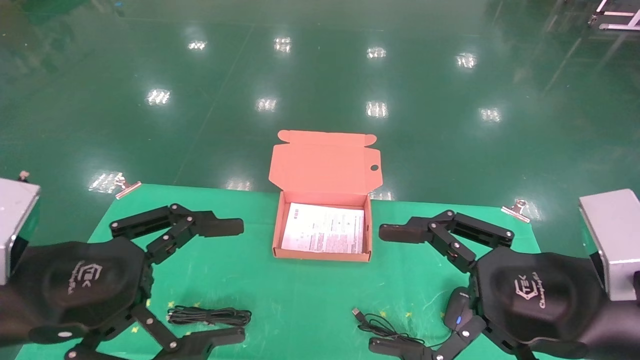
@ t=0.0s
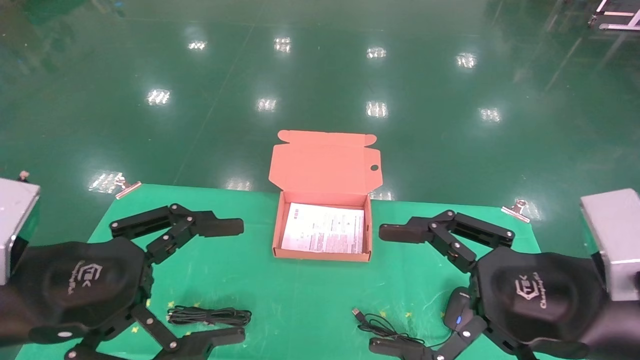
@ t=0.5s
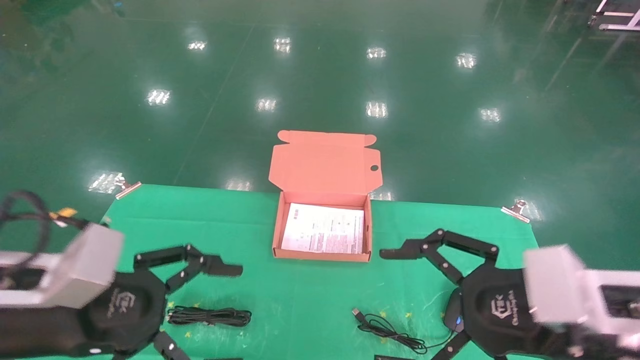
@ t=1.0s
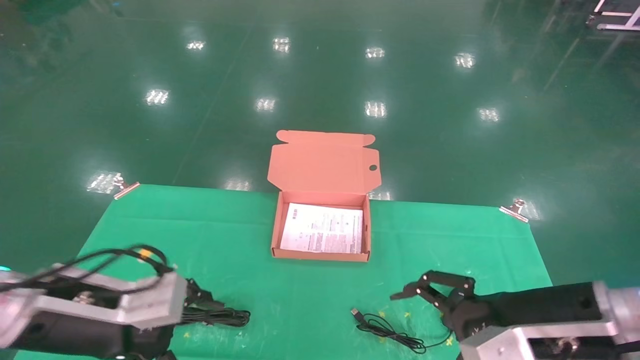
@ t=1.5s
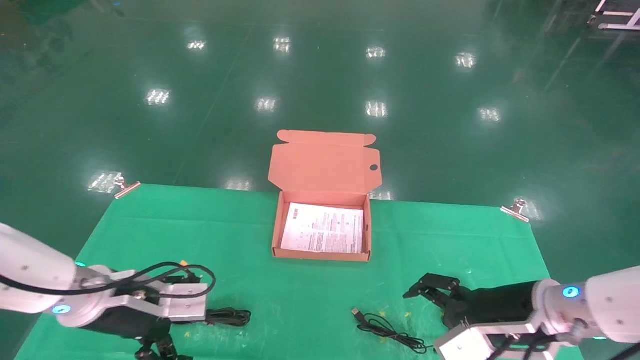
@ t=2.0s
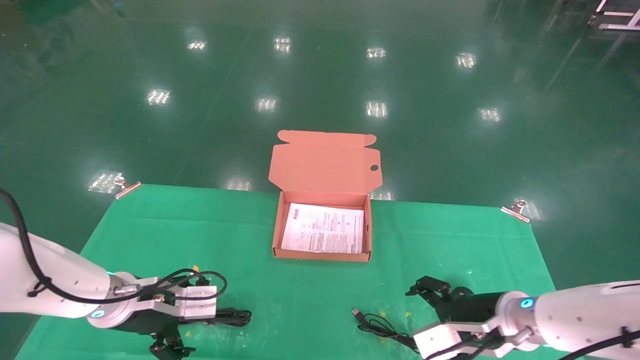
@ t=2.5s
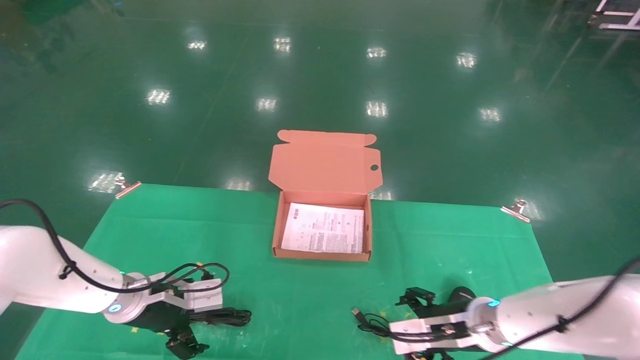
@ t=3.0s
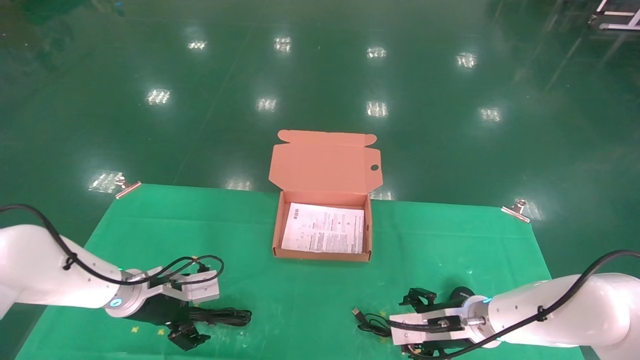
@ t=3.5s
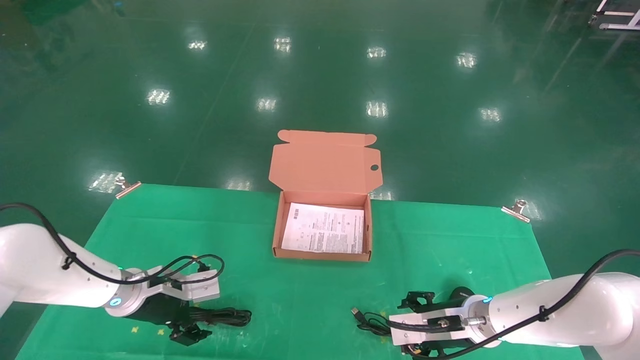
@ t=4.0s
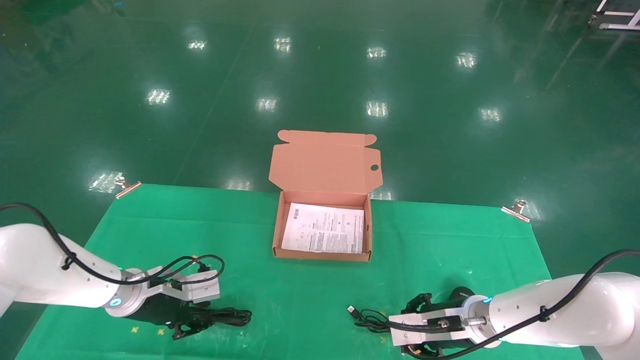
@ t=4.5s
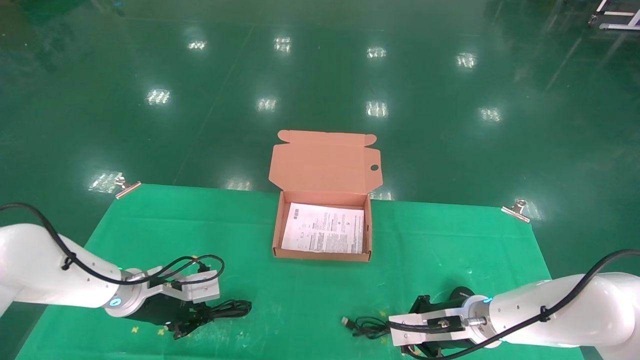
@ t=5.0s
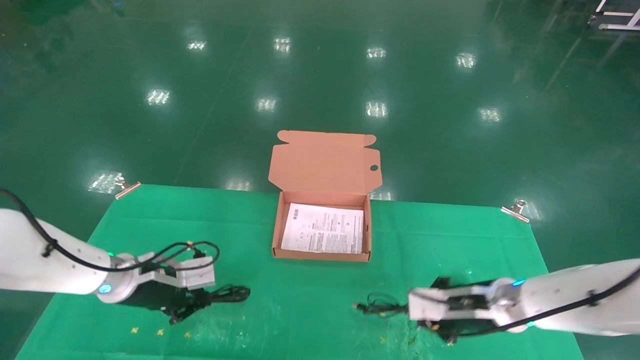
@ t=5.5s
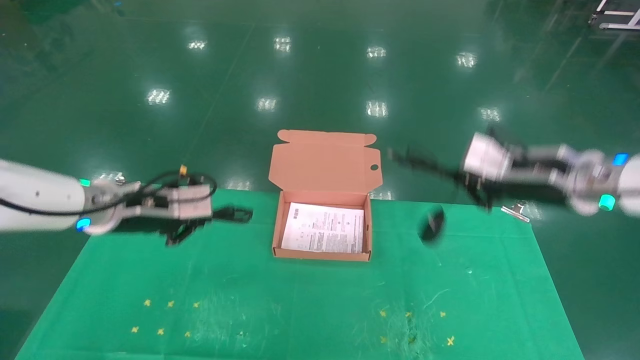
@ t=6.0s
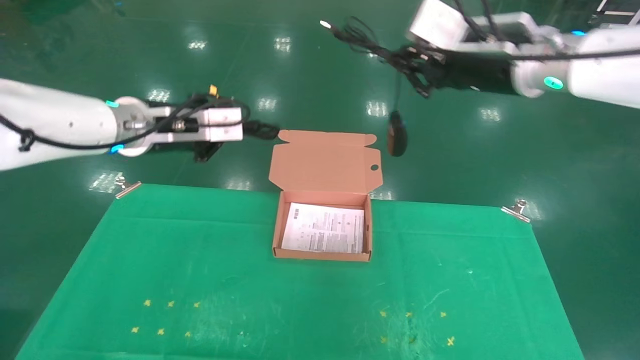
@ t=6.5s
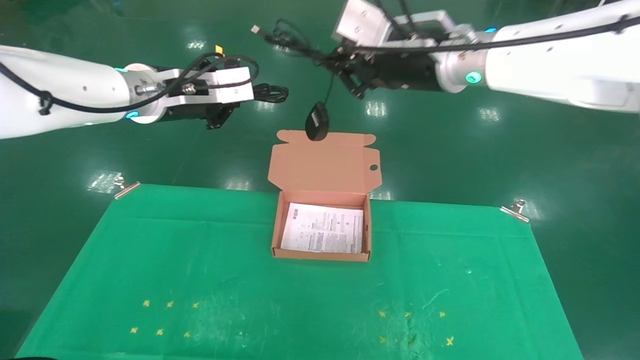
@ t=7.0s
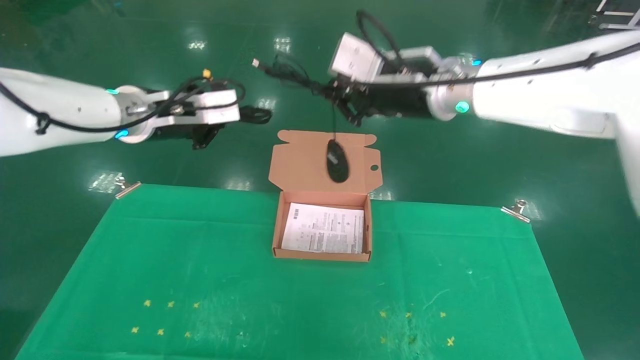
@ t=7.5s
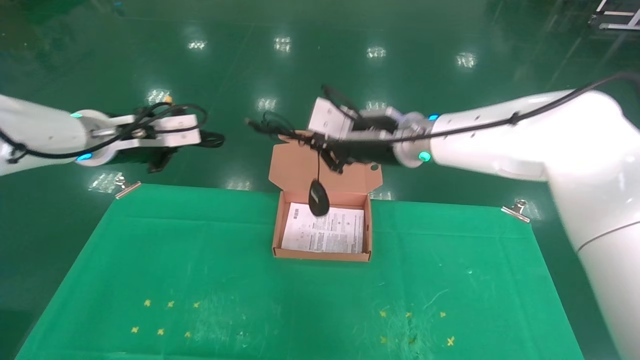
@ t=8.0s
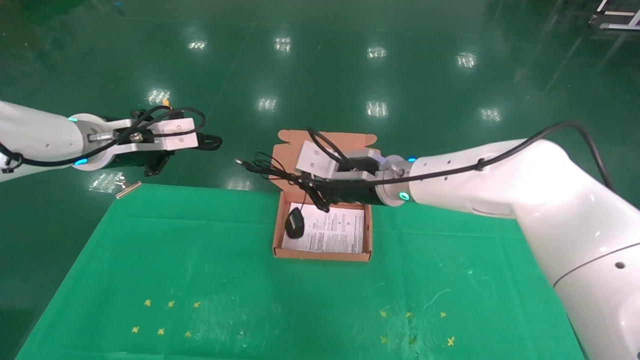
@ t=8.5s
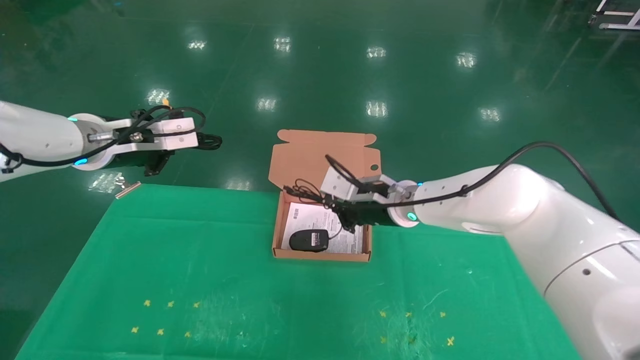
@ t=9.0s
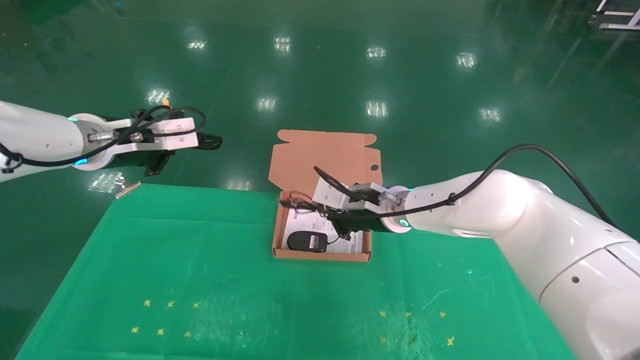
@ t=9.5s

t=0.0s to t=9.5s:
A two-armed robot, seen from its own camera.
Task of the whole recording: grasp data cable left put into box grasp mouse right put into box.
Step, t=0.5s to t=5.5s: Grab and pick up both the mouse and power cord from the accessory packaging area at the same time.
t=0.0s to t=2.0s: The grippers both shift forward and downward by some 15 cm.
t=2.0s to t=4.0s: The right gripper is displaced downward and forward by about 15 cm. Meanwhile the left gripper goes about 10 cm forward and downward.
t=4.0s to t=5.5s: The right gripper closes, while the left gripper closes.
t=5.5s to t=7.5s: The right gripper heads upward and to the left, covering approximately 30 cm. The left gripper travels upward by roughly 25 cm.
t=7.5s to t=9.5s: The right gripper heads downward, covering approximately 15 cm.

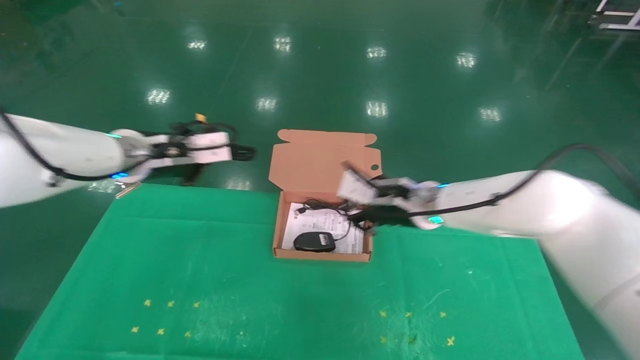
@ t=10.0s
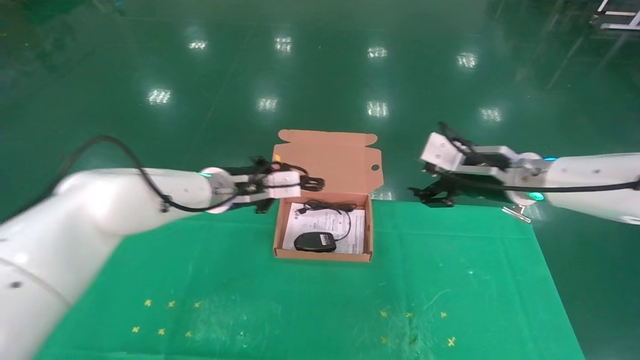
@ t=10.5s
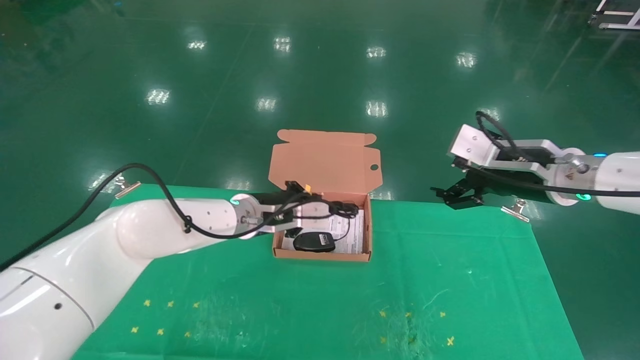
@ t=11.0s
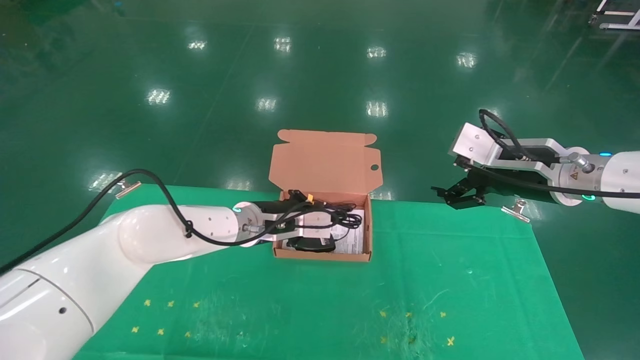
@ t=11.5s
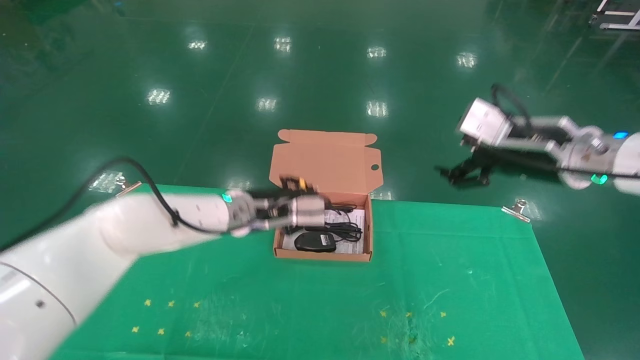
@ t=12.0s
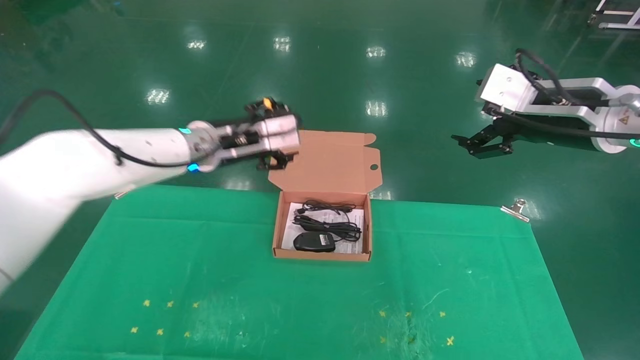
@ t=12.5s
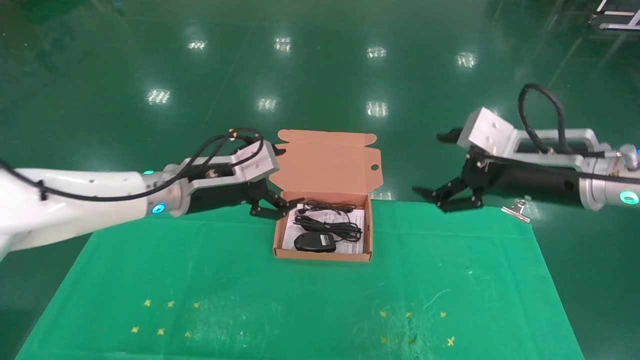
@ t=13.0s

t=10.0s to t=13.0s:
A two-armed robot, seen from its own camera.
Task of the whole recording: grasp data cable left put into box grasp mouse right put into box.
Step, t=10.0s to t=12.0s: Place the mouse and power cord into the box.
t=10.0s to t=11.5s: The left gripper shifts approximately 20 cm to the right and downward, while the right gripper moves to the right, backward and upward, roughly 20 cm, and opens its fingers.
t=11.5s to t=13.0s: The right gripper is displaced backward by roughly 5 cm. Meanwhile the left gripper goes roughly 15 cm to the left, upward and backward, and opens.

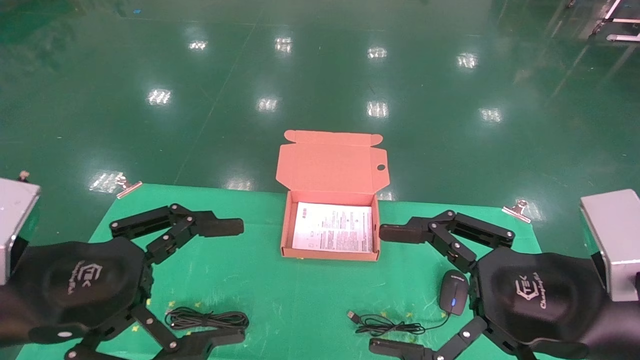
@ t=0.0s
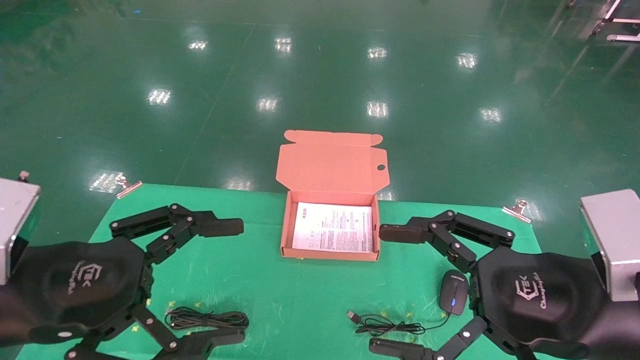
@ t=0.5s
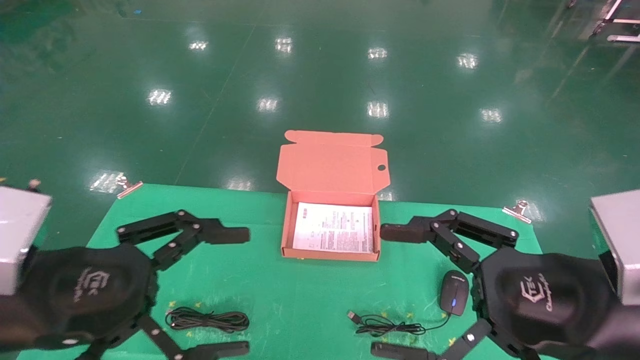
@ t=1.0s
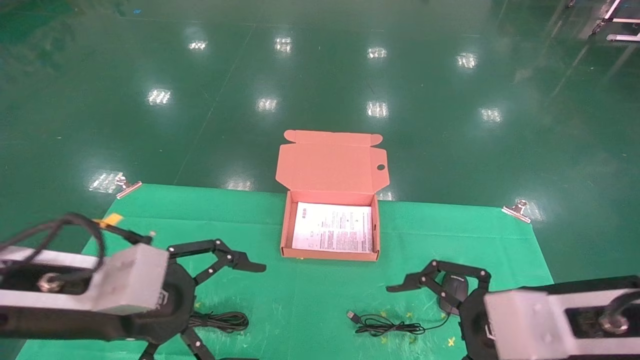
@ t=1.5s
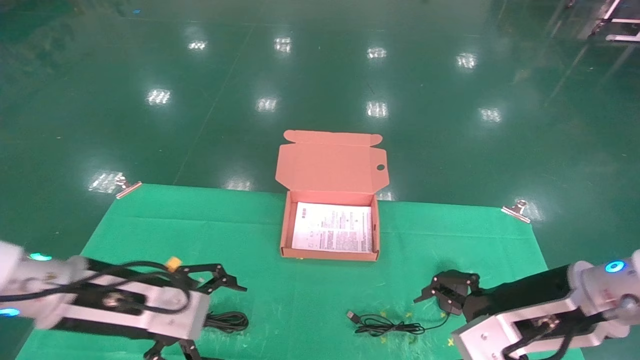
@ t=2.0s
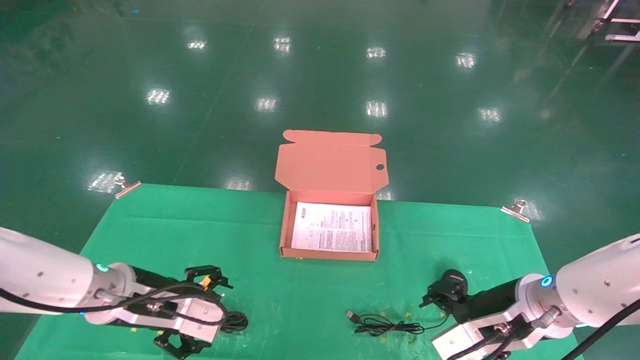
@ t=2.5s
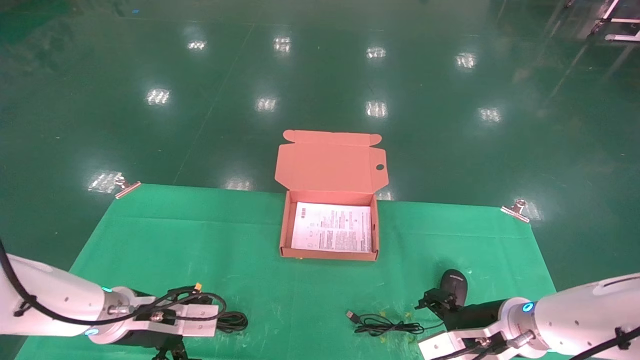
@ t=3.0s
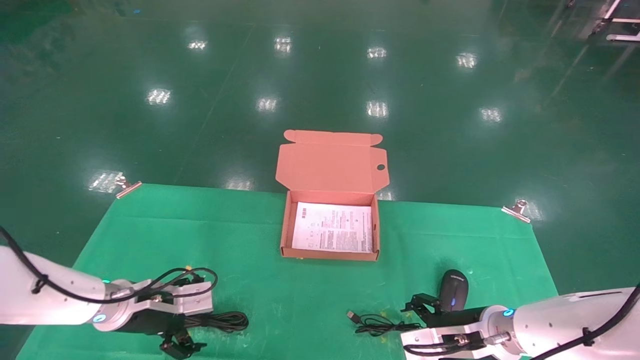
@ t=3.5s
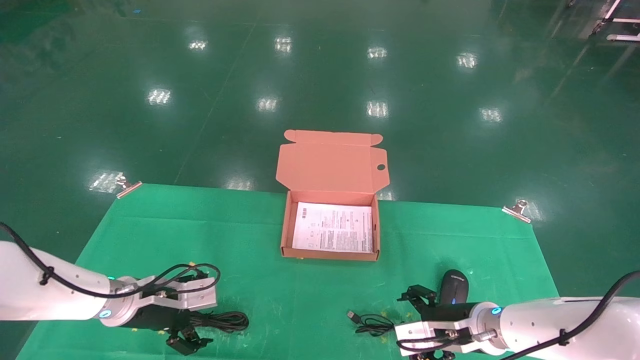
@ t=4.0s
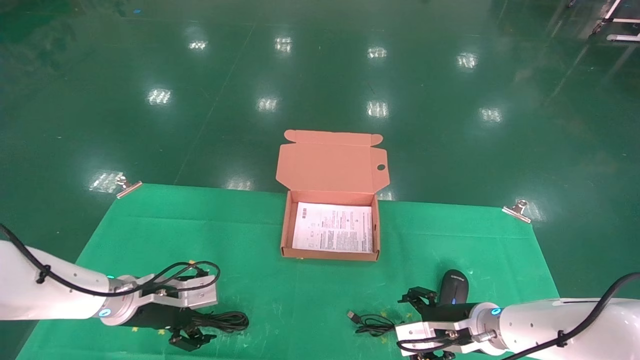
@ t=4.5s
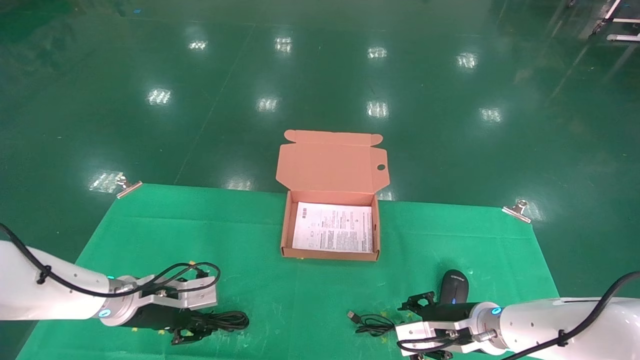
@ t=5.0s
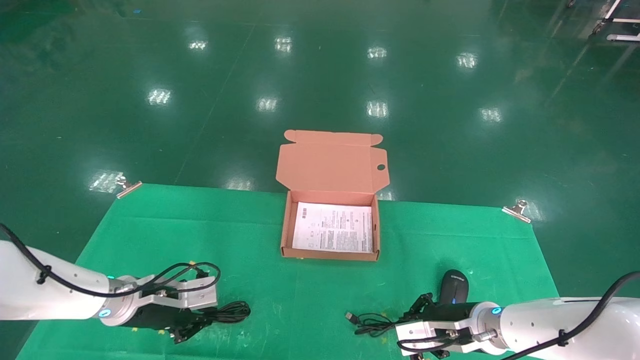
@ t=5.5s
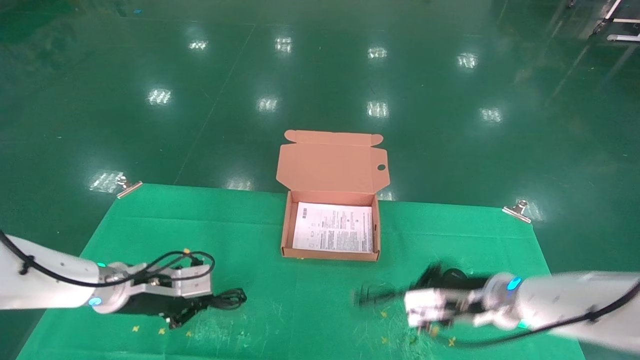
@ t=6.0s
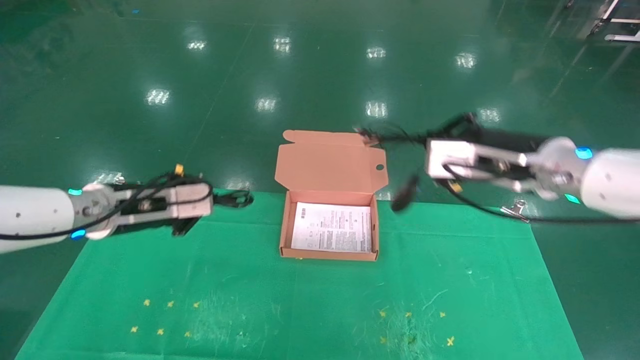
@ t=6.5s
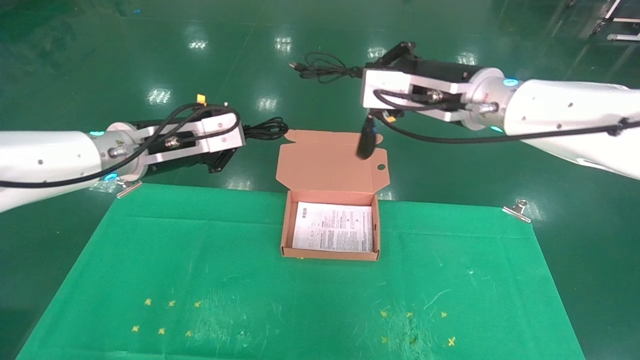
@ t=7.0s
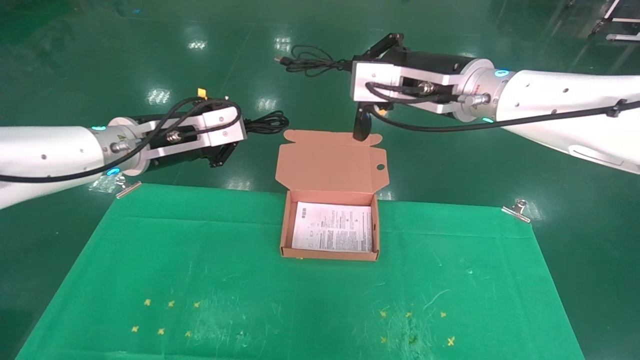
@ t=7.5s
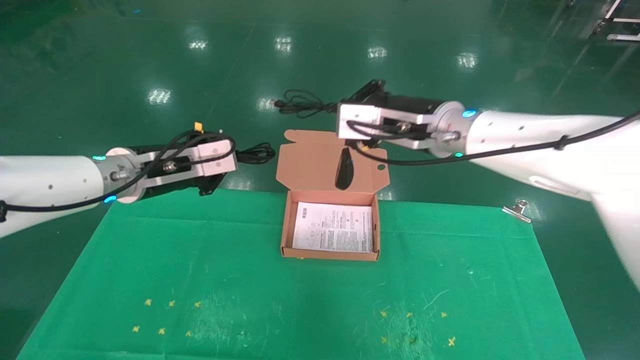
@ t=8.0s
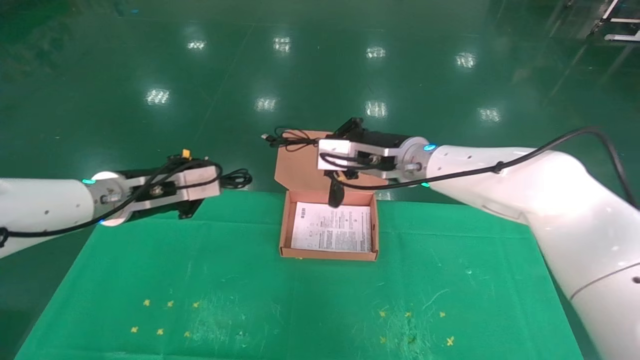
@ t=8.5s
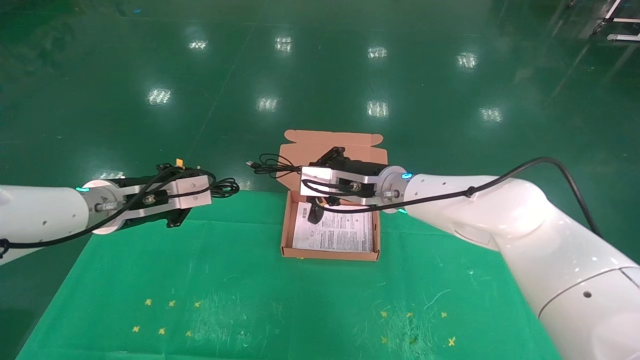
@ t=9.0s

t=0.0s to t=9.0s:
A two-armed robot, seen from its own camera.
Task of the whole recording: grasp data cable left put into box grasp mouse right put into box.
Step, t=1.0s to t=6.0s: Grab and pick up both the mouse and power cord from the accessory packaging area at the same time.
t=0.0s to t=2.0s: Both grippers move forward and downward, roughly 10 cm.
t=2.0s to t=4.5s: The left gripper is displaced forward and downward by roughly 15 cm. Meanwhile the right gripper shifts roughly 20 cm downward and forward.
t=4.5s to t=7.0s: The grippers both shift upward by approximately 30 cm. The left gripper closes up; the right gripper closes up.
t=7.0s to t=9.0s: The left gripper travels downward by approximately 5 cm. Meanwhile the right gripper is displaced downward, to the left and forward by approximately 15 cm.
